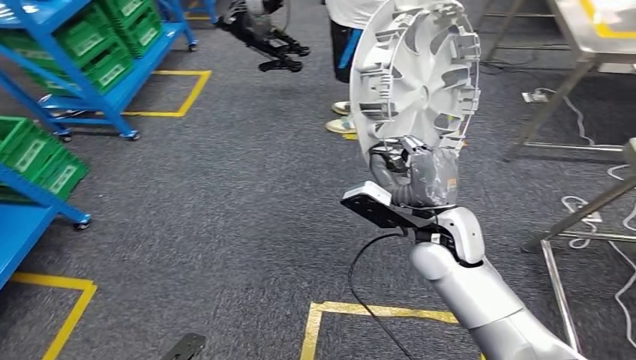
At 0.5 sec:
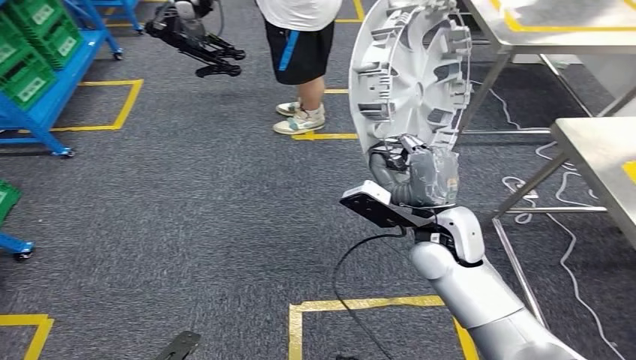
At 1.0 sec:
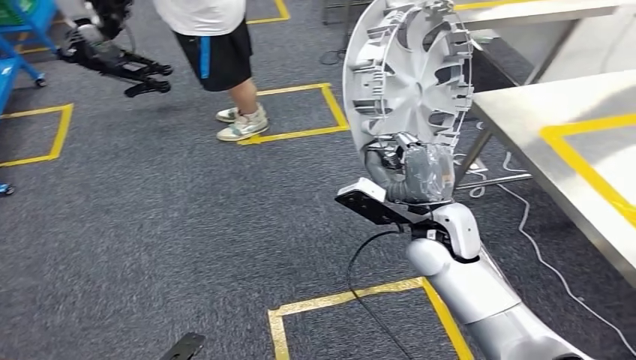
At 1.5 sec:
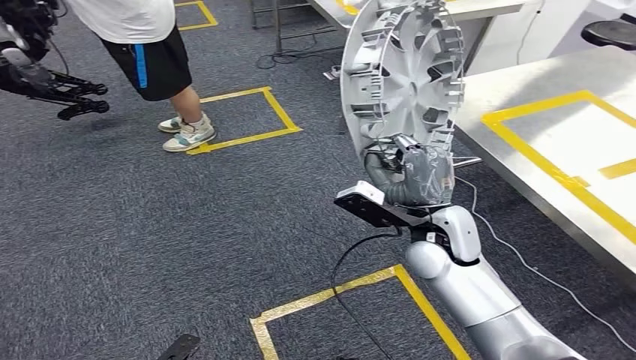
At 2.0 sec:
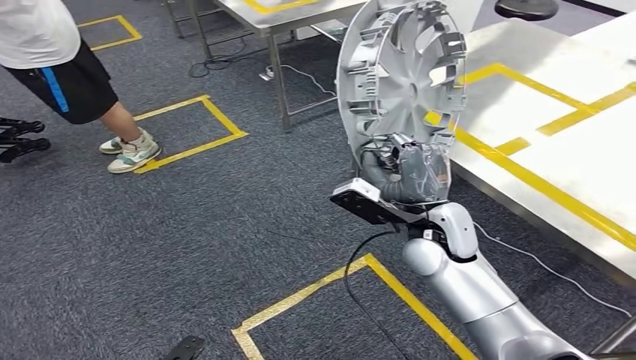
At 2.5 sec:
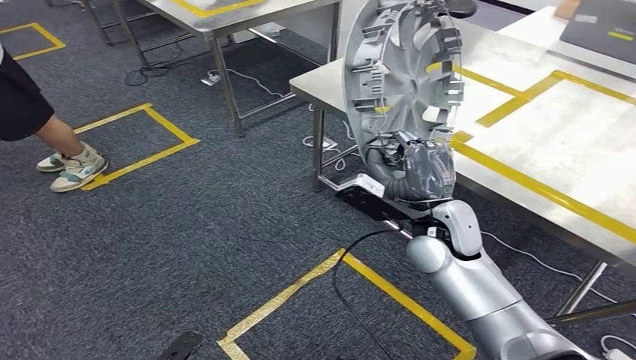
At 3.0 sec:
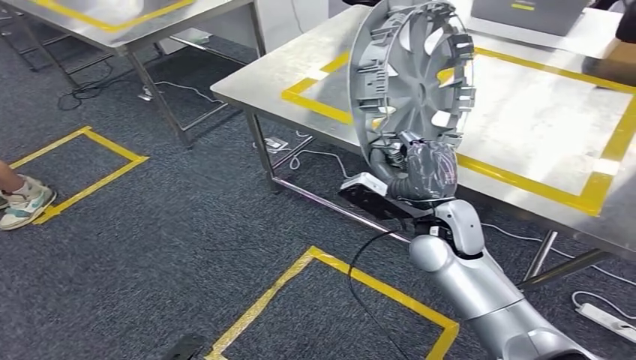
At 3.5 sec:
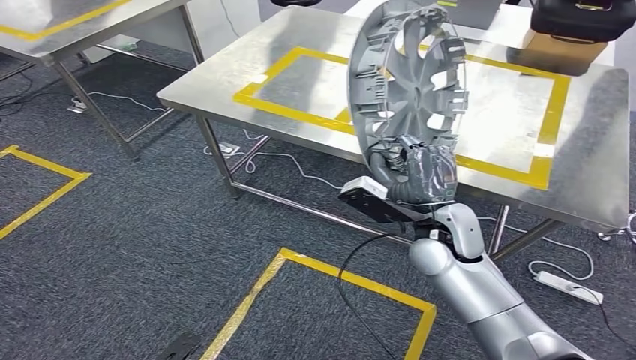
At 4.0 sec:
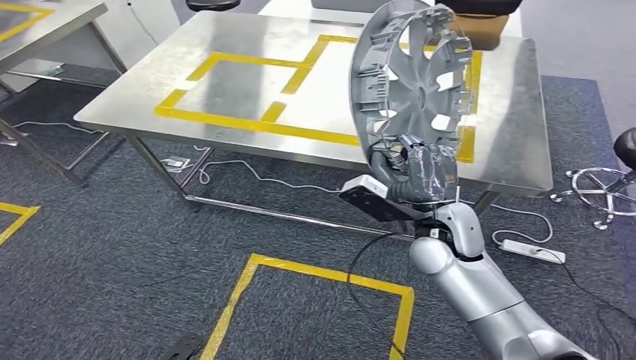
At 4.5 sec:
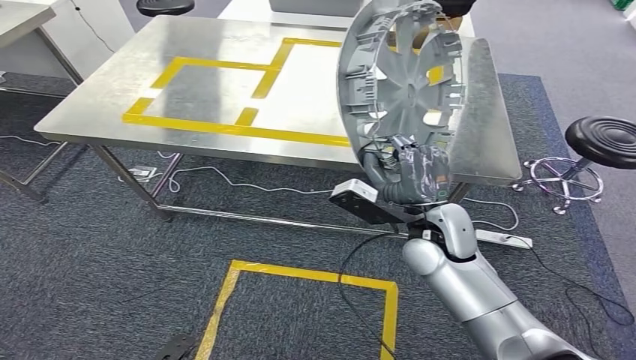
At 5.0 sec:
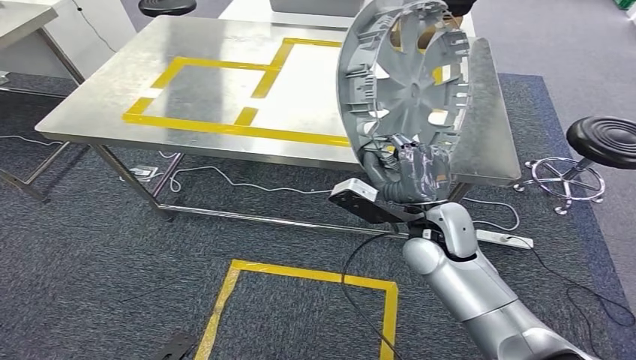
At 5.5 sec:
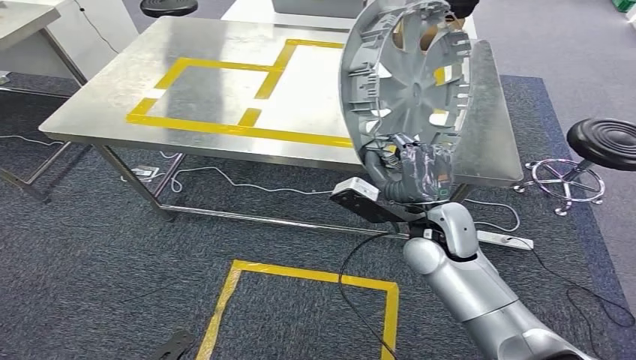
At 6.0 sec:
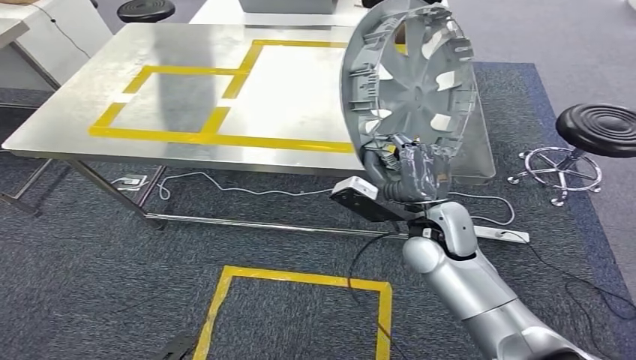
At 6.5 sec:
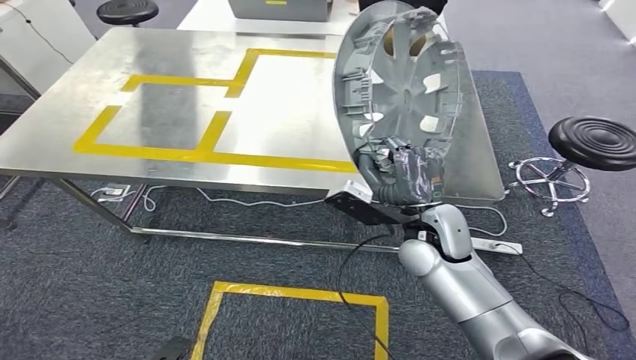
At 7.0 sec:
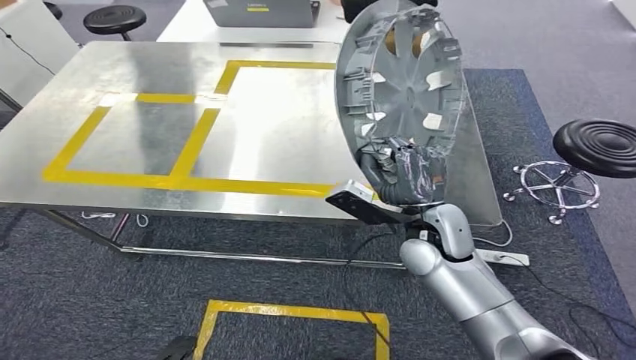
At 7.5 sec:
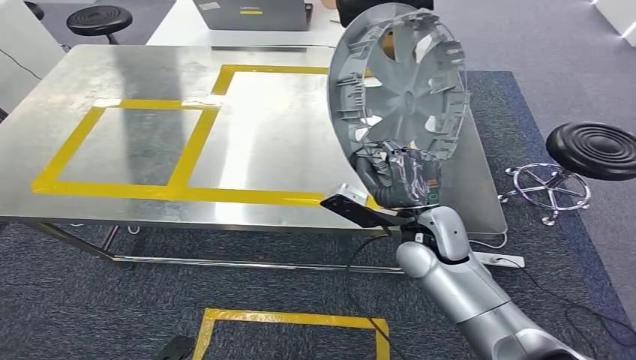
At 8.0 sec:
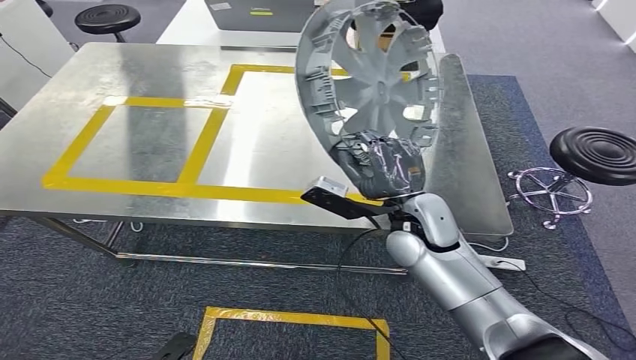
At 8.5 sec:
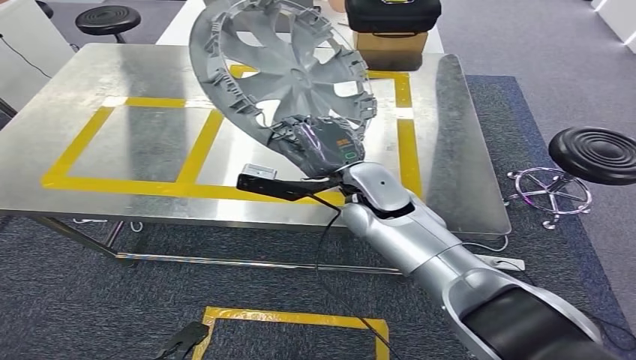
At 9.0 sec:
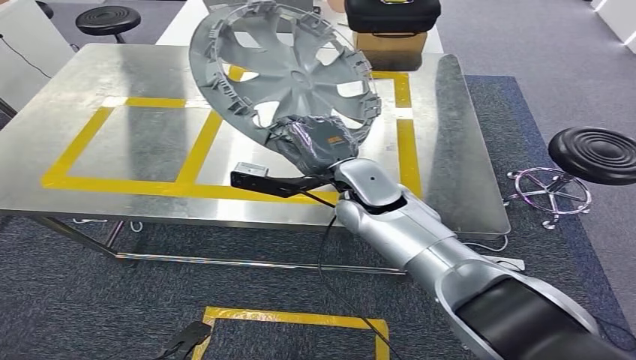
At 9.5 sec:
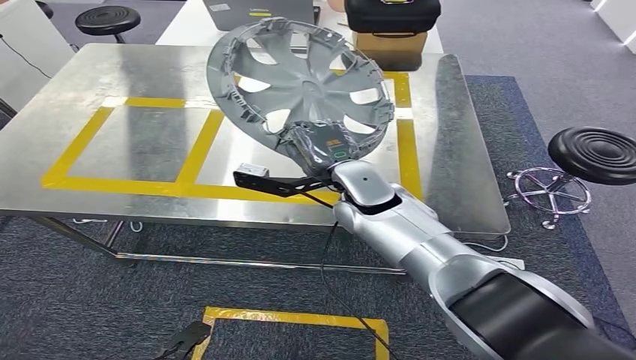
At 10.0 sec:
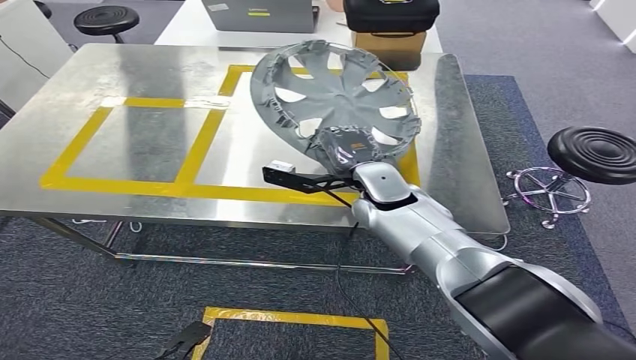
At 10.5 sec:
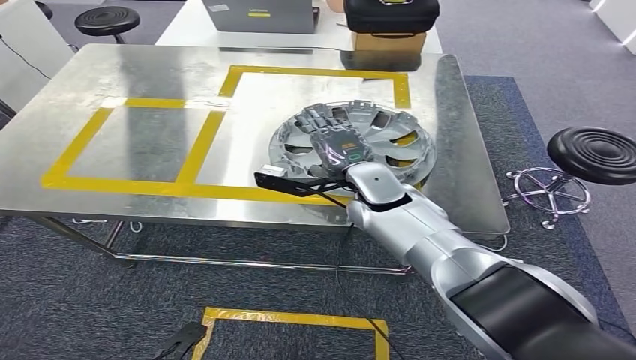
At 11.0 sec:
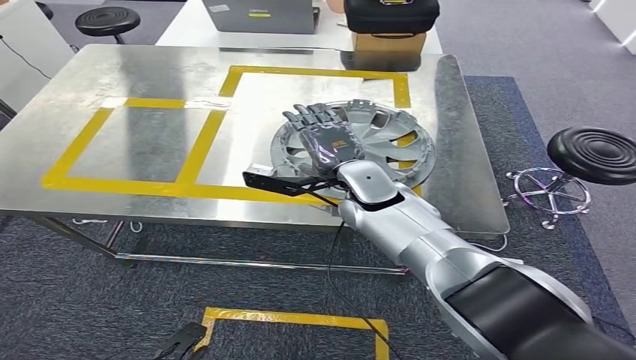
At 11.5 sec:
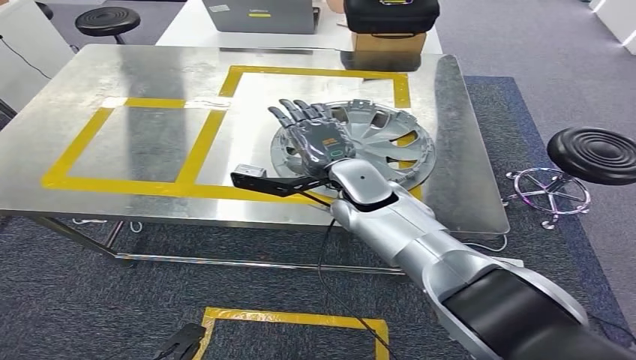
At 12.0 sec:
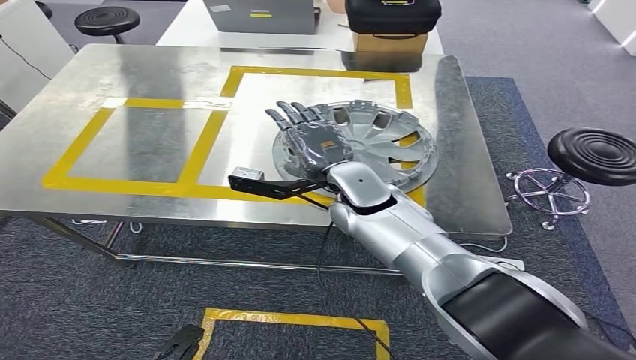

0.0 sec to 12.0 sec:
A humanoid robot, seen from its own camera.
Step, 0.0 sec to 8.5 sec: Move the small parts to the workbench.
8.0 sec to 10.0 sec: The right hand is displaced forward by roughly 5 cm.
10.0 sec to 12.0 sec: The hands make only small movements.

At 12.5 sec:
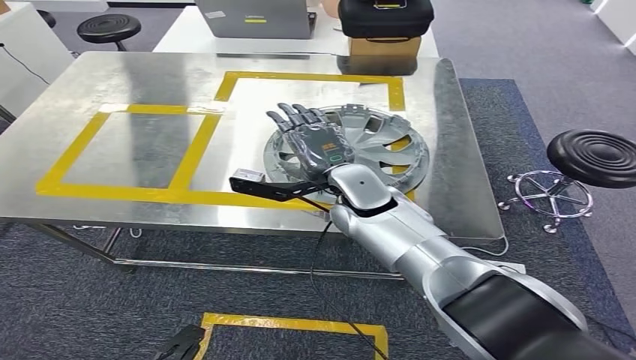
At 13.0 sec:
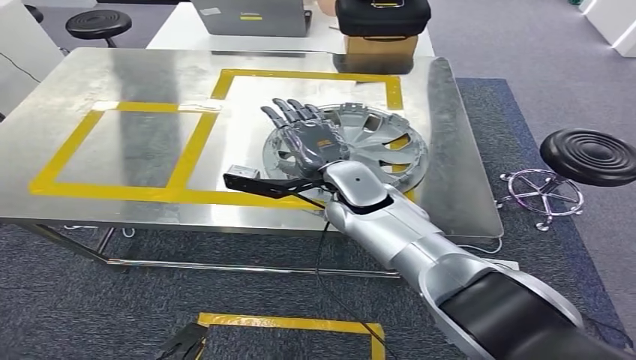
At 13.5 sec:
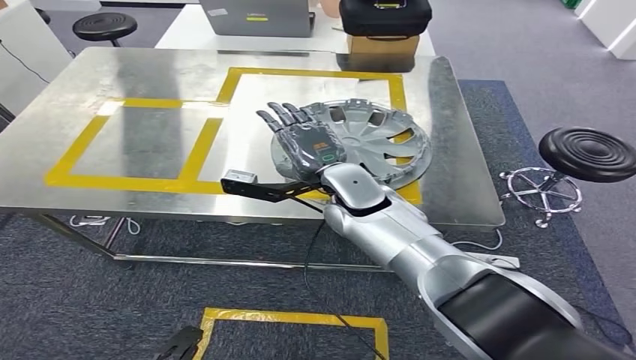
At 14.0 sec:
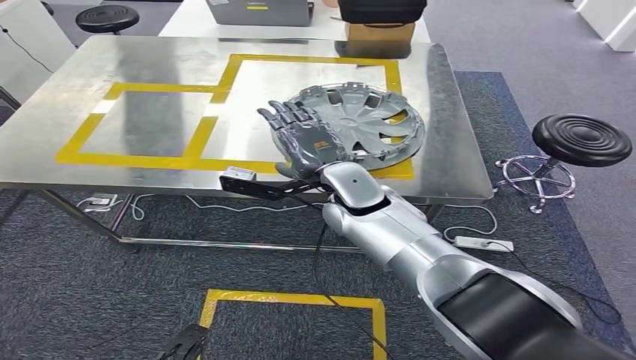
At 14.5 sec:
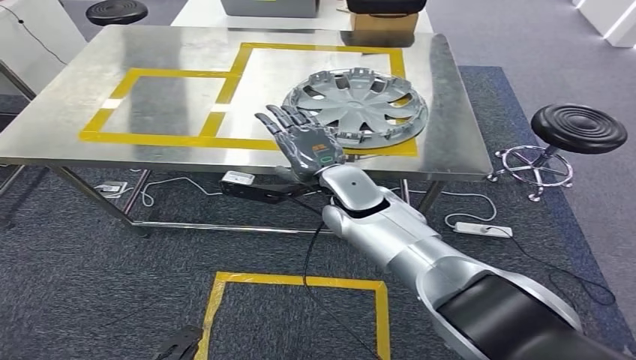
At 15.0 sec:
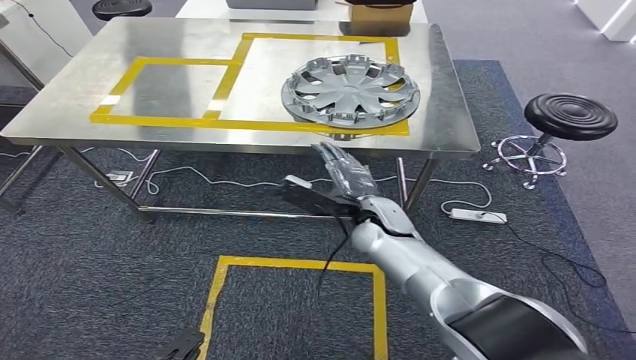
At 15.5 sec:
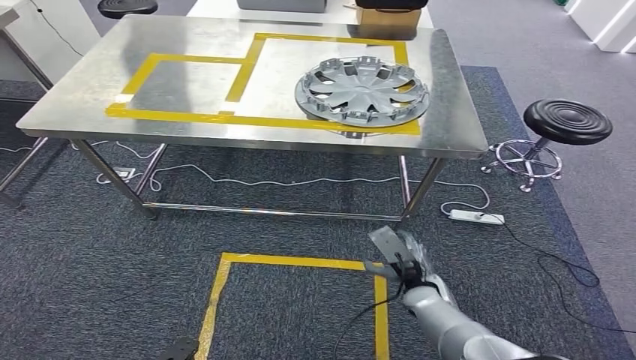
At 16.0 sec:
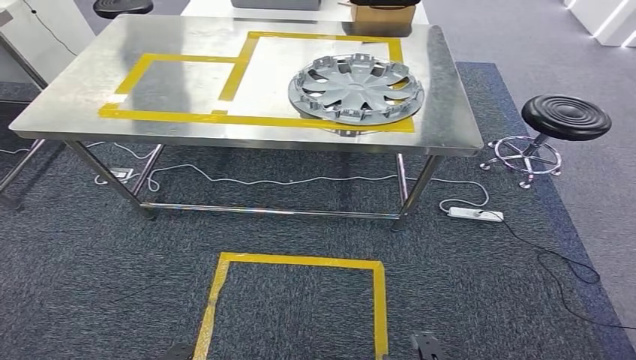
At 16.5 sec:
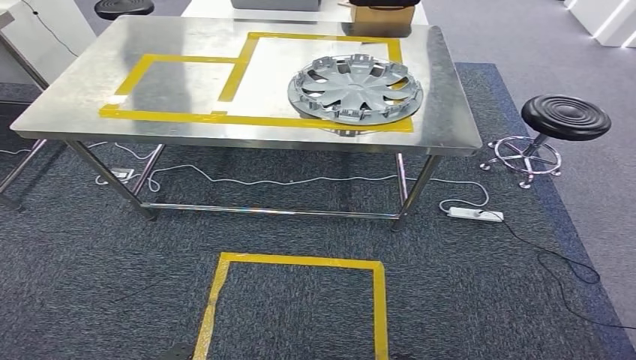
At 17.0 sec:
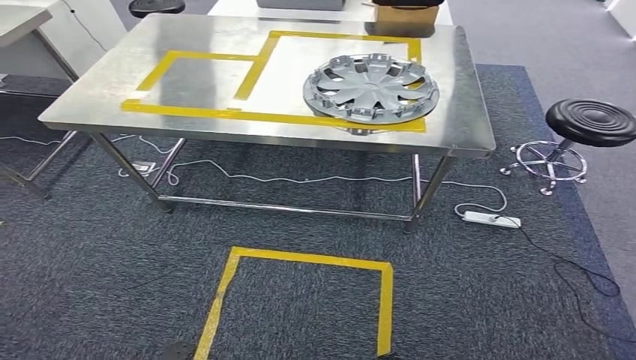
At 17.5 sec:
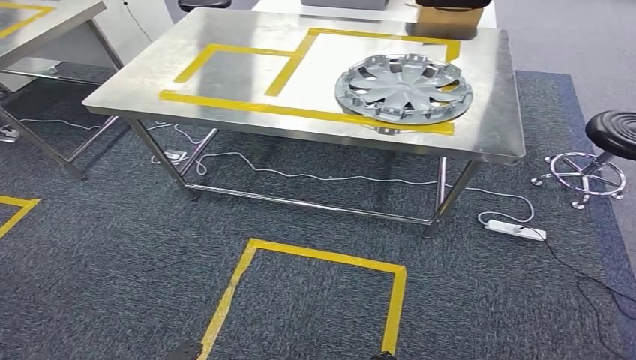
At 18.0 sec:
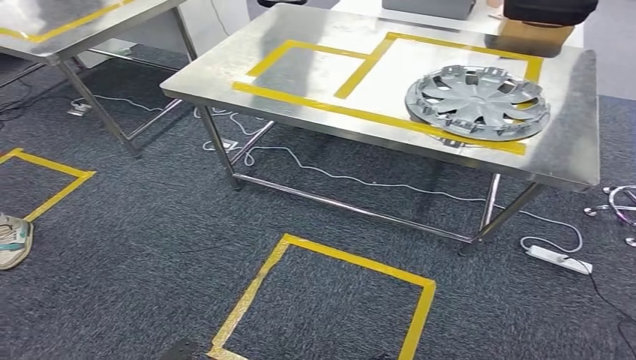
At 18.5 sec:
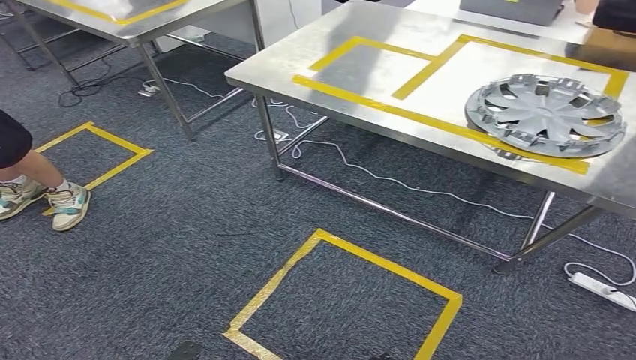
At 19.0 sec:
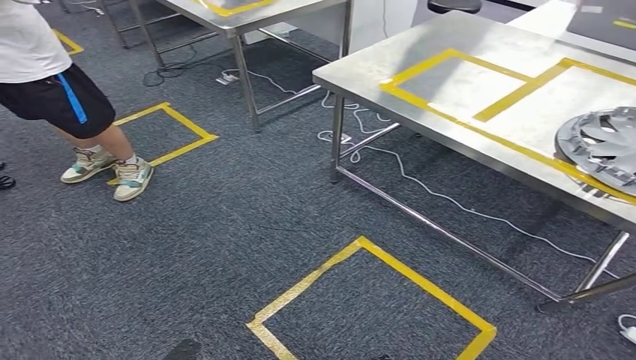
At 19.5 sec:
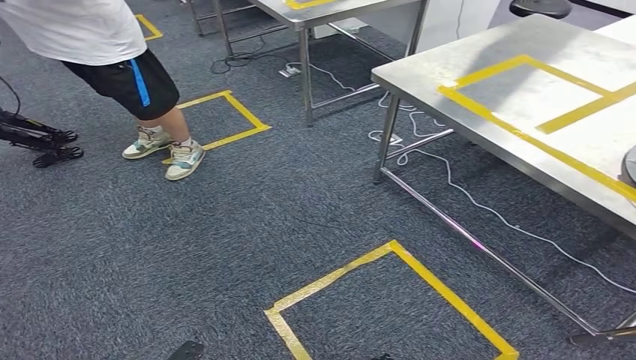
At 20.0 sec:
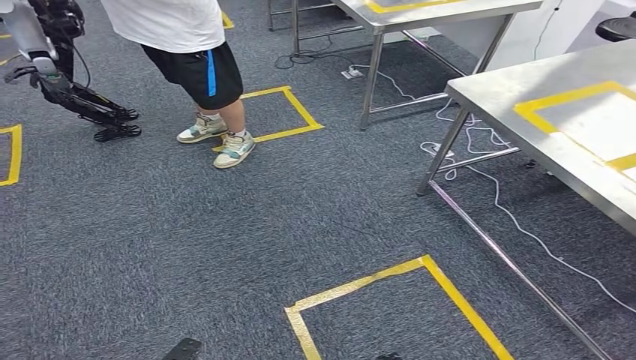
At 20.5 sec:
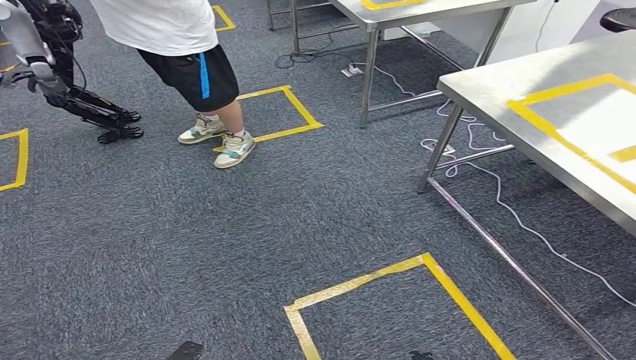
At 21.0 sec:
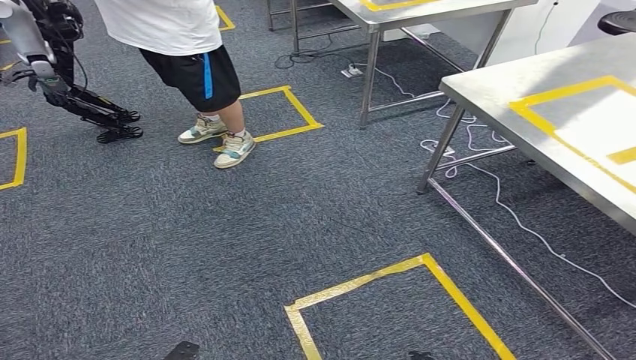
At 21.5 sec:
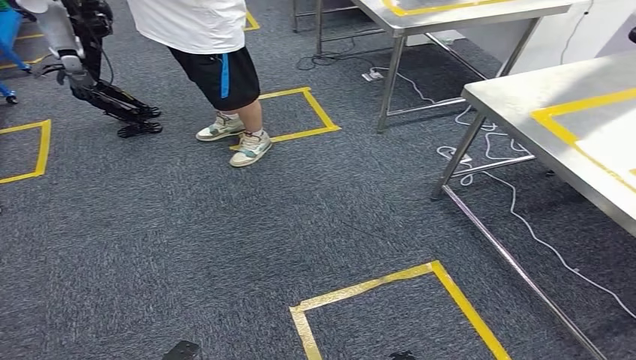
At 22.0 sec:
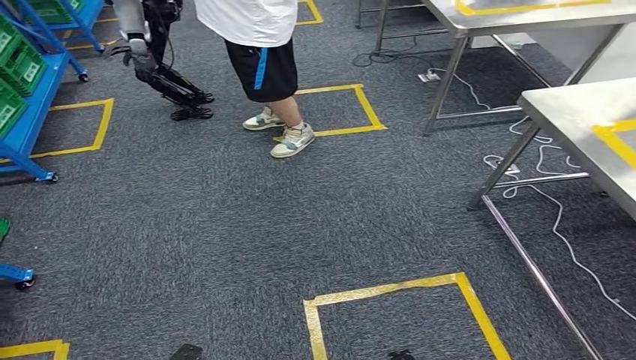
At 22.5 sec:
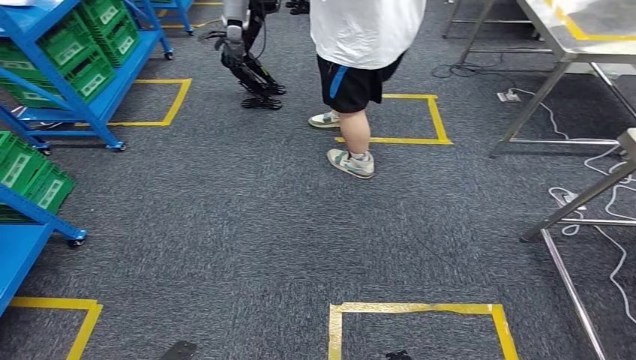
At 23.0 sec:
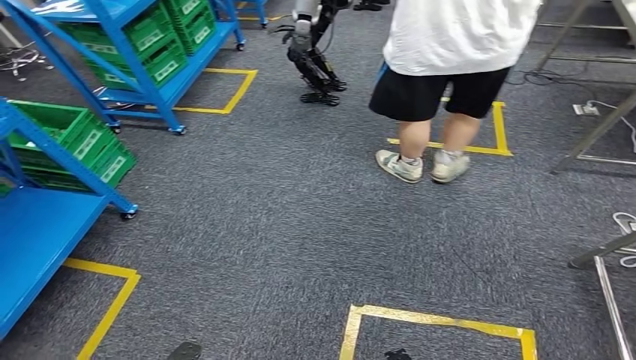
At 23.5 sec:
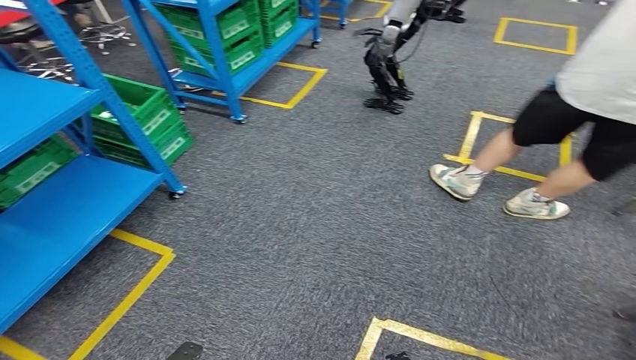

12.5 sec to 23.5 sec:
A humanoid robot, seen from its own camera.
Step, 12.5 sec to 15.5 sec: Insert the small parts into the corresponding holes on the workbench.
